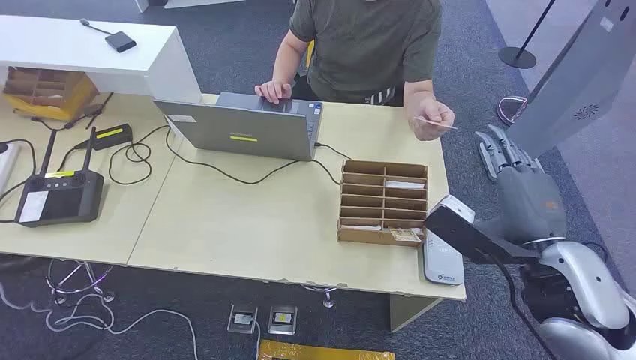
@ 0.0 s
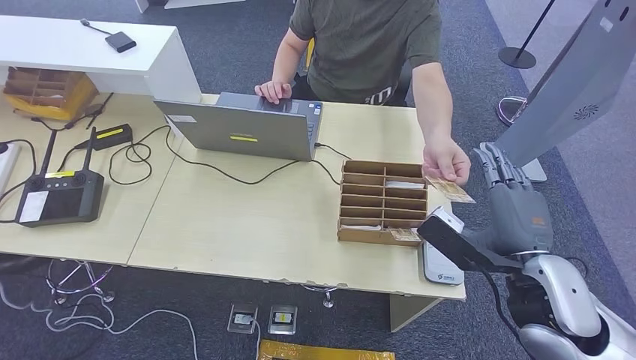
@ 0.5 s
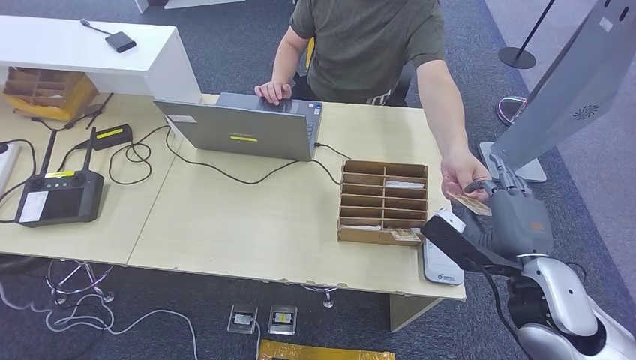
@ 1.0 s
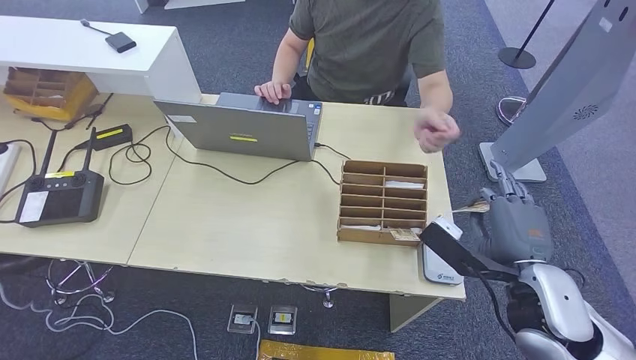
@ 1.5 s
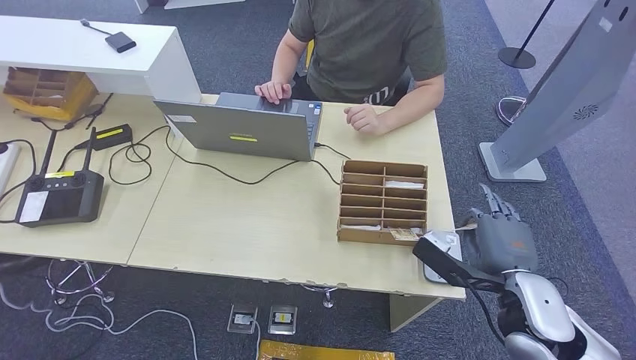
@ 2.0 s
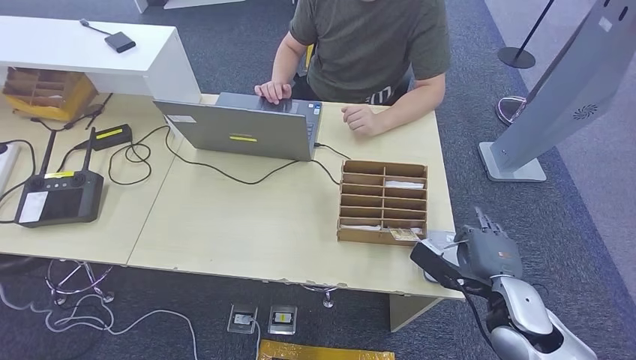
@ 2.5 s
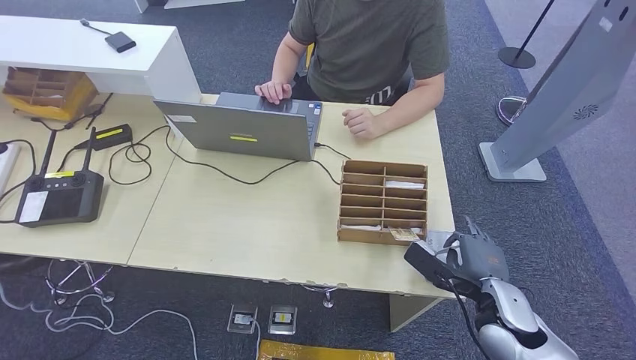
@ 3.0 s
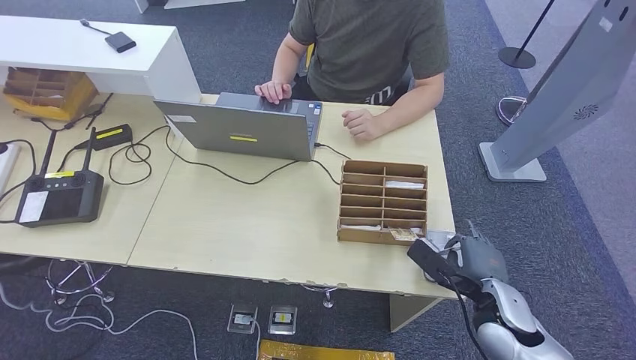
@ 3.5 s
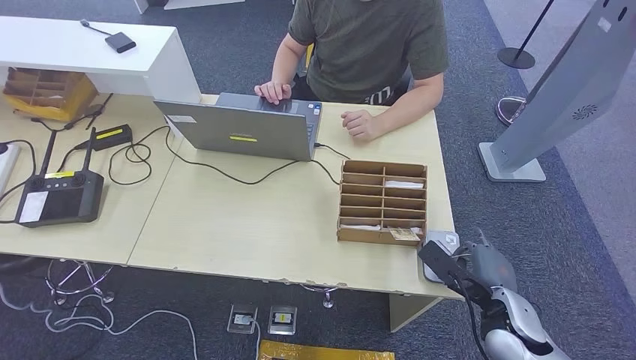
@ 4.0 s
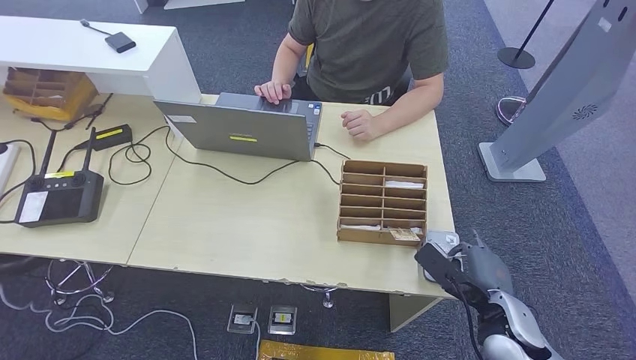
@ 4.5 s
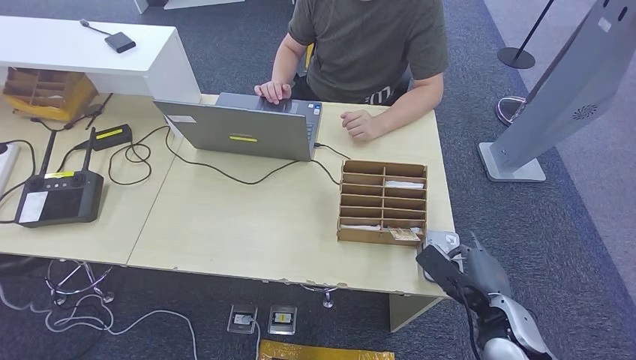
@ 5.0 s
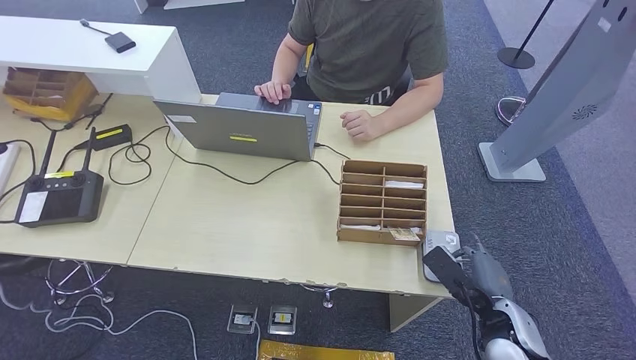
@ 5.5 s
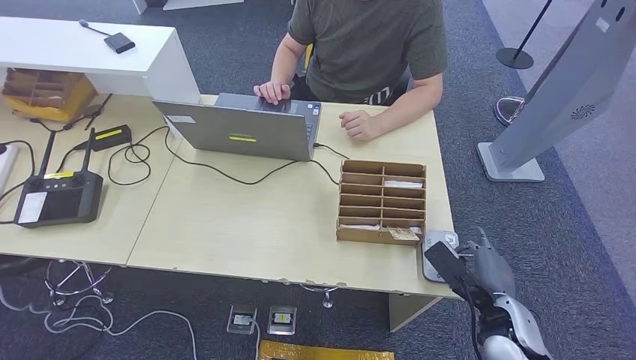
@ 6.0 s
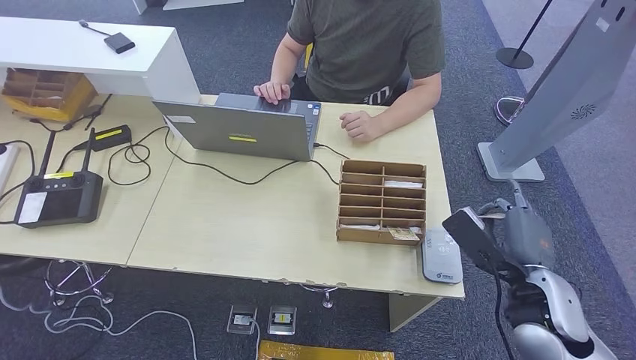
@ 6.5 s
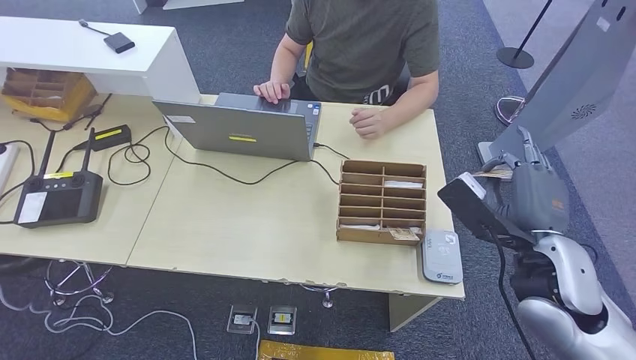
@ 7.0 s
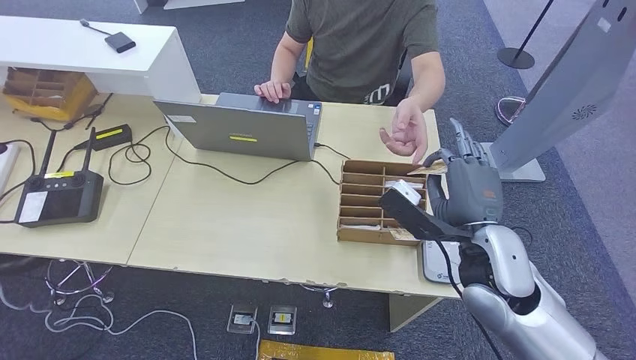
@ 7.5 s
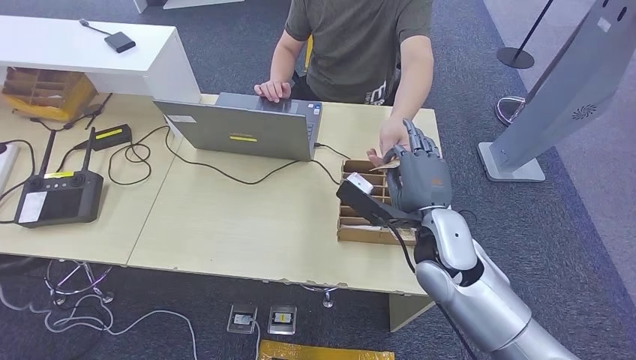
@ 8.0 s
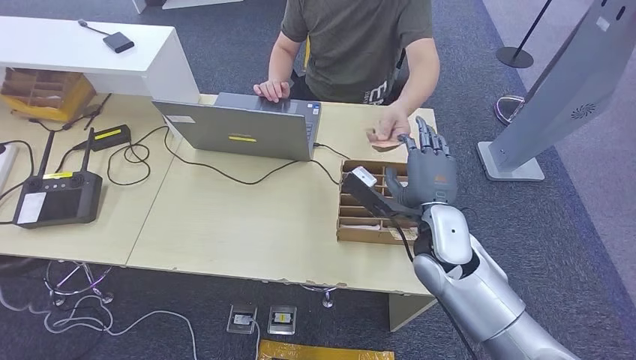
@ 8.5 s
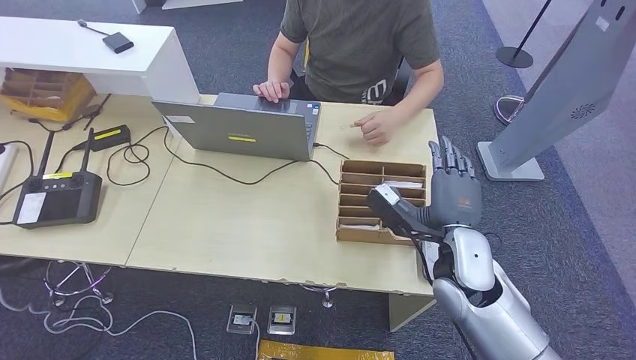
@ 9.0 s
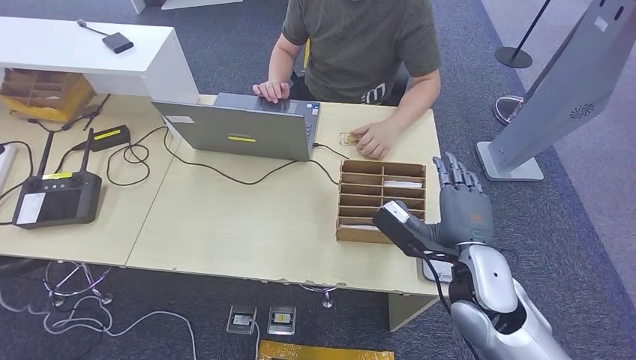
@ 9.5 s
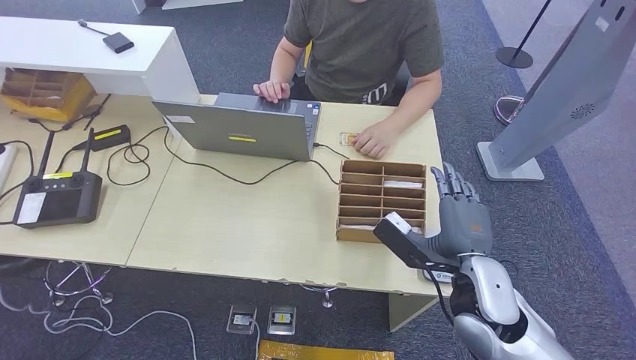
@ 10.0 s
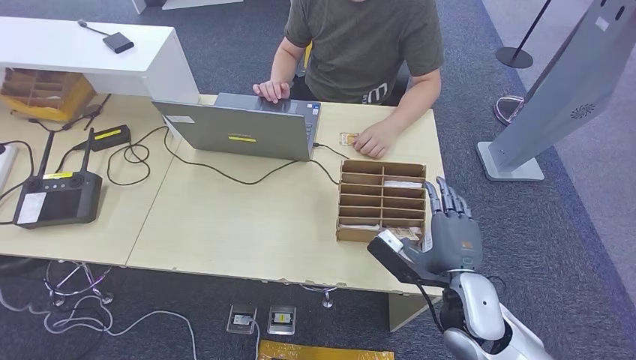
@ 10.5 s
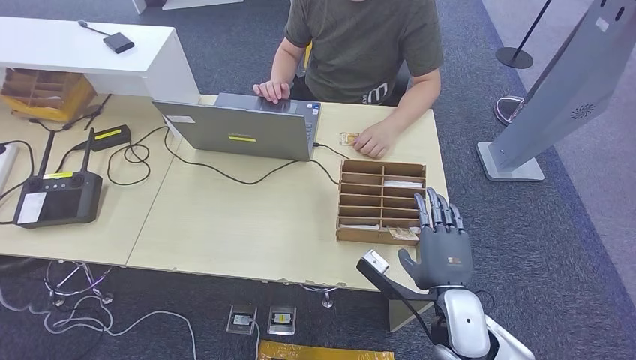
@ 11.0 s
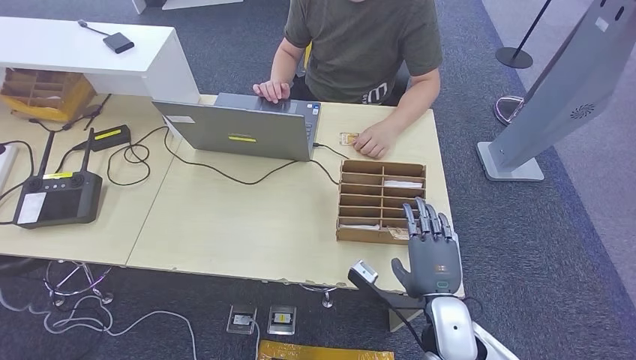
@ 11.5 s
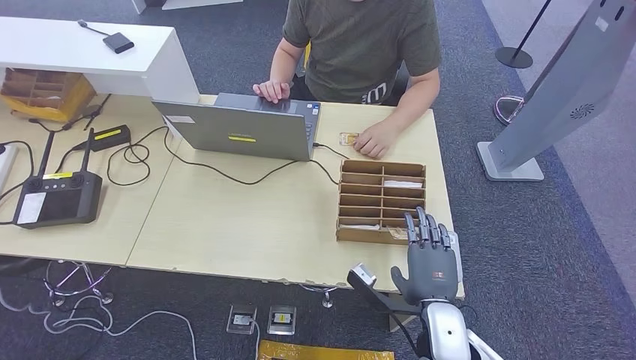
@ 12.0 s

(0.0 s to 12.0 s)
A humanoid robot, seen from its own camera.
Step, 0.0 s - 2.5 s: Take the ID card from the person's hand.
Step, 3.0 s - 6.5 s: Place the ID card on the card reader.
Step, 7.0 s - 9.5 s: Hand the ID card to the person.
2.0 s - 4.0 s: The right hand travels downward by roughly 10 cm.
4.0 s - 6.0 s: There are only small adjustments of the hands.
6.0 s - 8.0 s: The right hand goes roughly 20 cm to the left, upward and forward.
8.0 s - 10.0 s: The right hand is displaced to the right and backward by approximately 10 cm.
10.0 s - 12.0 s: The right hand is displaced downward by about 10 cm.

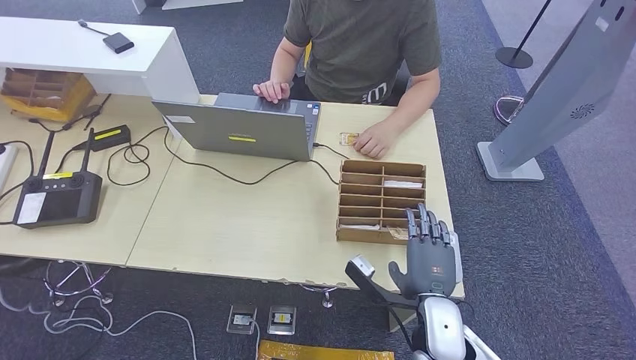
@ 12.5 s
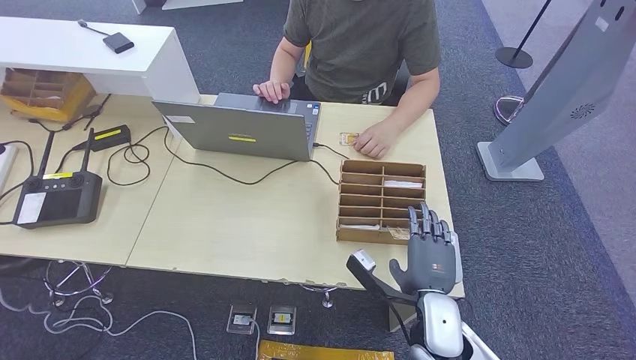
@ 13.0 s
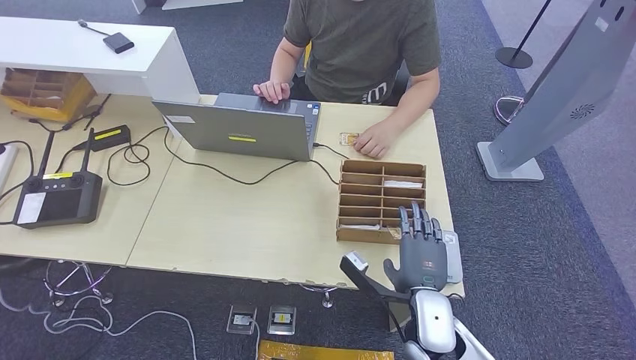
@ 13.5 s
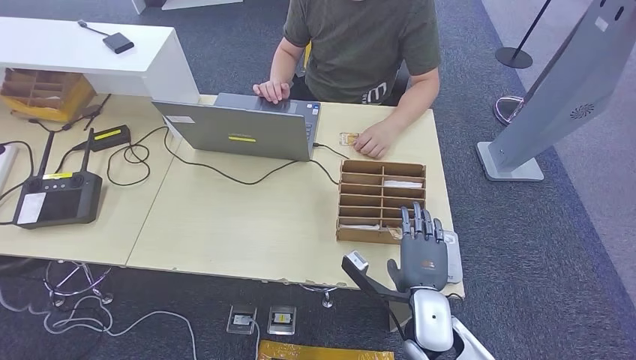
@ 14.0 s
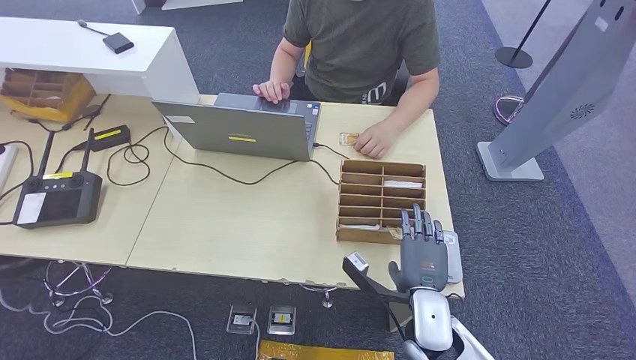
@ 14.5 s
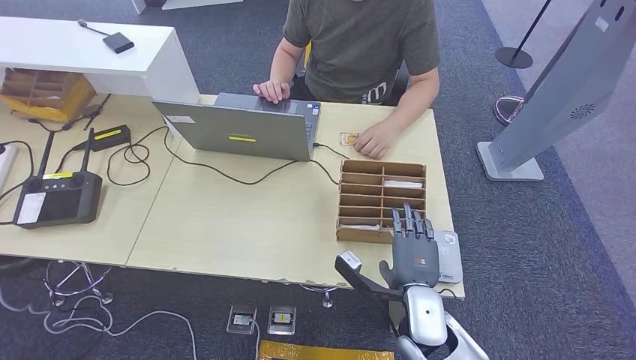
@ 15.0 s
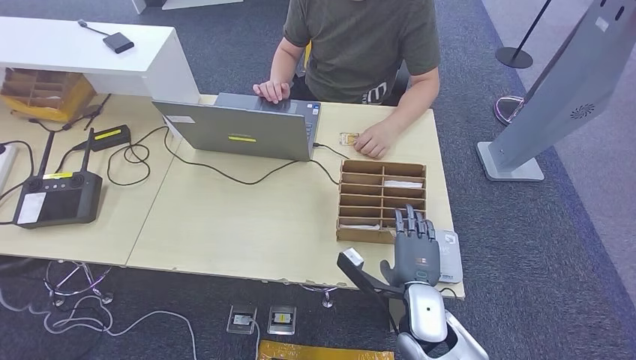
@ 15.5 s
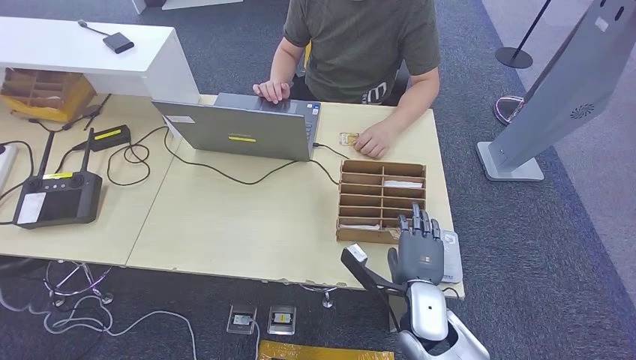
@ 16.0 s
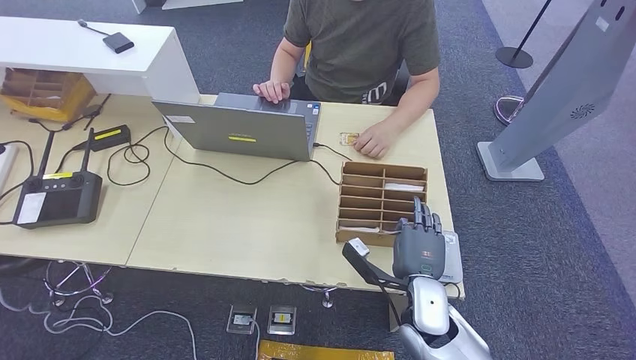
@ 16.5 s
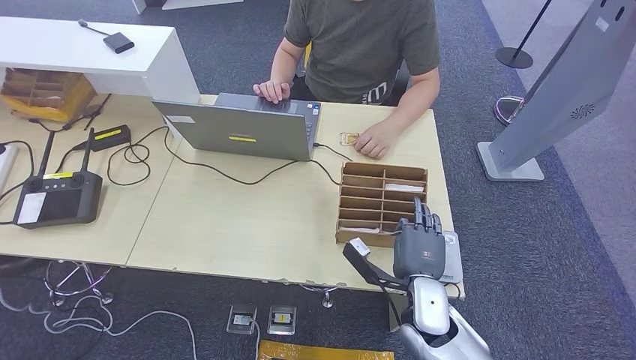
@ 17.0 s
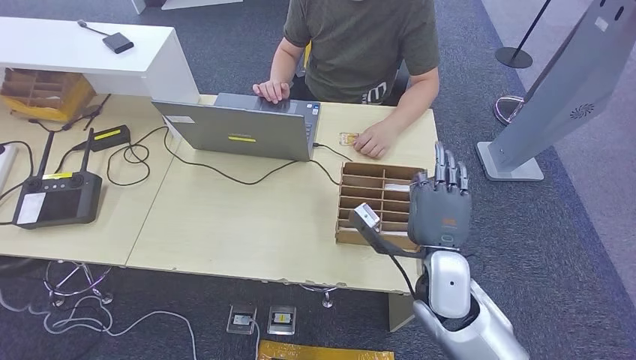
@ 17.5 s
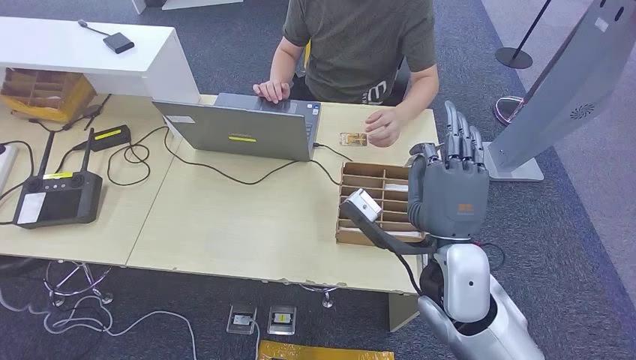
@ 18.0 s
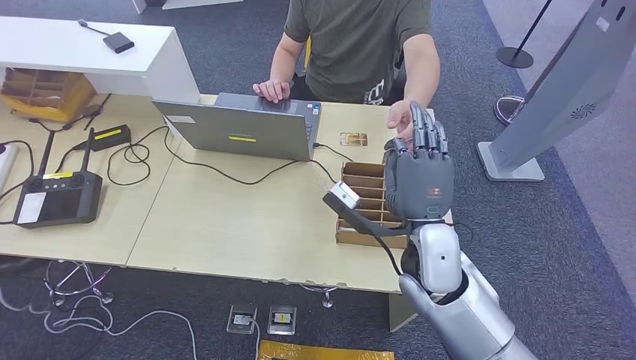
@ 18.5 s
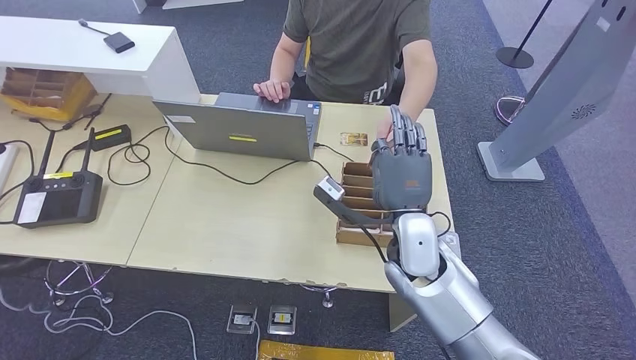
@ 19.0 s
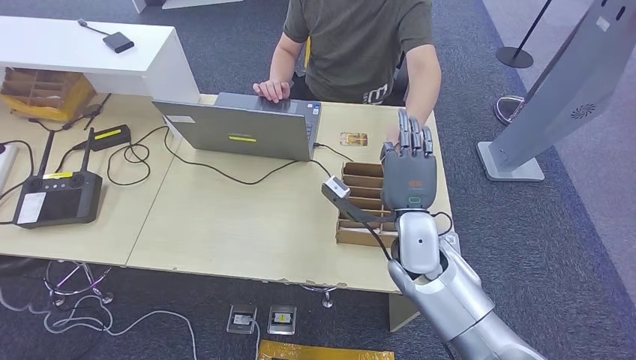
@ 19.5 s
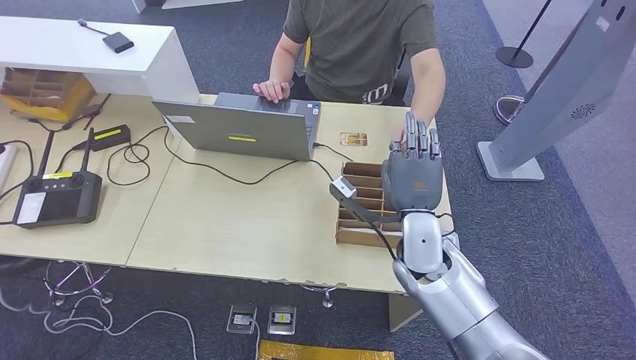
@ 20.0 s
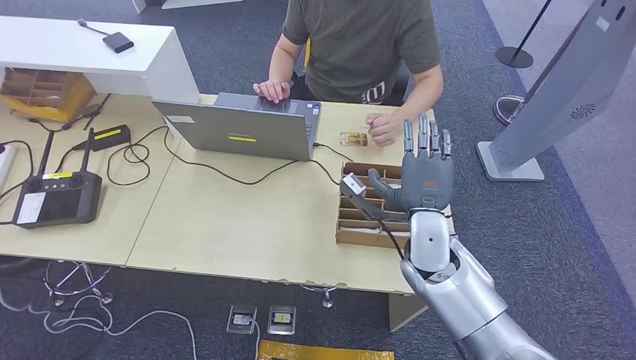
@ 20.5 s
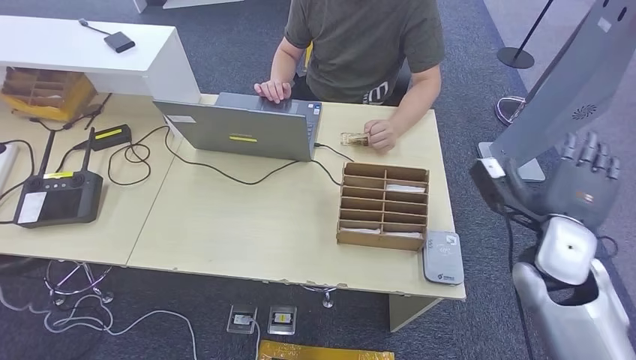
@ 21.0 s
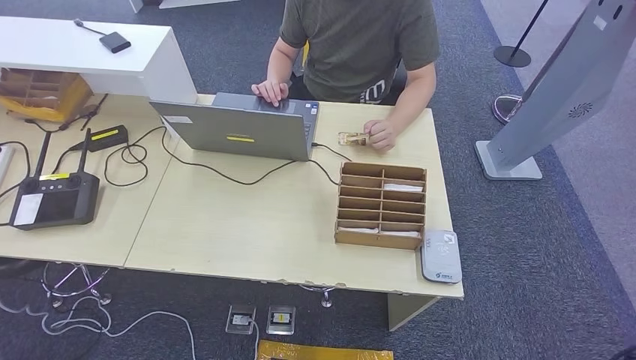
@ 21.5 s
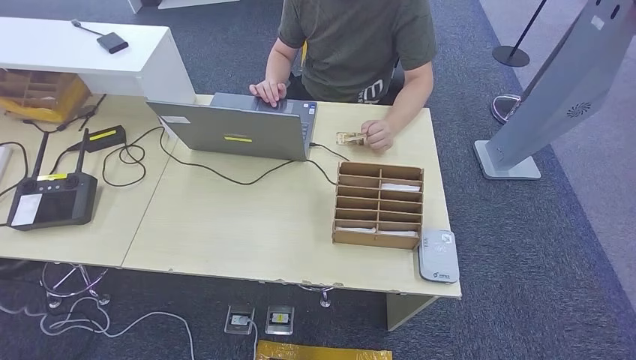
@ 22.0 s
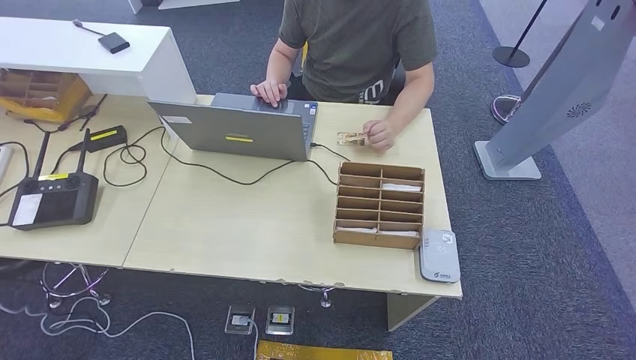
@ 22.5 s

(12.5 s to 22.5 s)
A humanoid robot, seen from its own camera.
Step, 12.5 s - 17.5 s: Pick up the room key from the key card box.
Step, 18.0 s - 22.5 s: Hand the room key to the person.
12.5 s - 16.5 s: The hands stay close to where they were, moving slightly.
16.5 s - 18.5 s: The right hand is displaced upward by roughly 15 cm.
18.5 s - 20.5 s: The right hand shifts by some 5 cm.
20.5 s - 22.5 s: The right hand goes approximately 40 cm backward and downward, and goes to the right and returns, roughly 35 cm each way.
